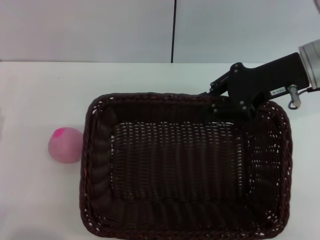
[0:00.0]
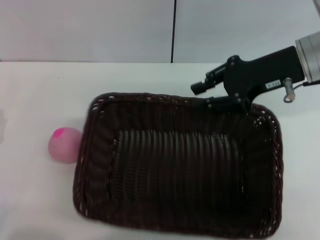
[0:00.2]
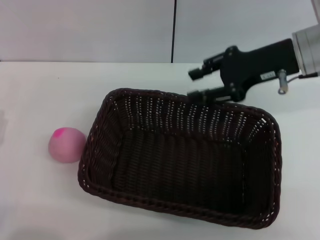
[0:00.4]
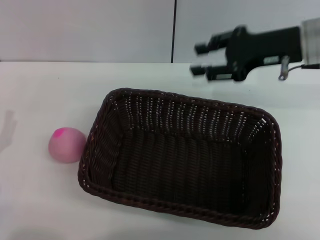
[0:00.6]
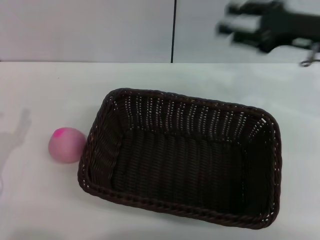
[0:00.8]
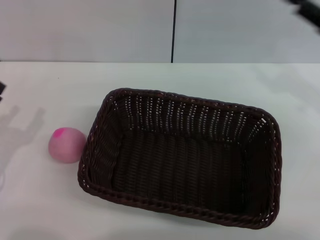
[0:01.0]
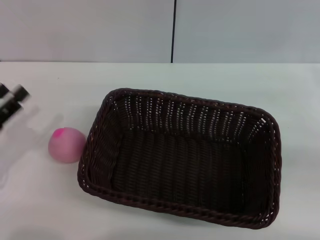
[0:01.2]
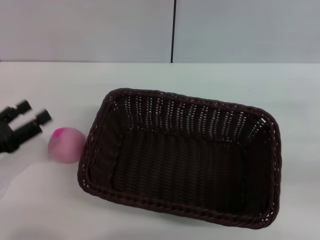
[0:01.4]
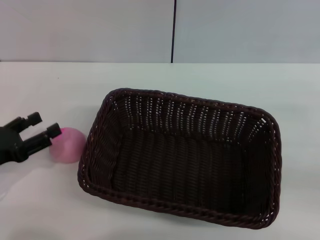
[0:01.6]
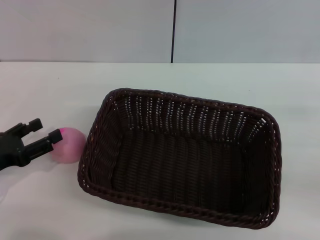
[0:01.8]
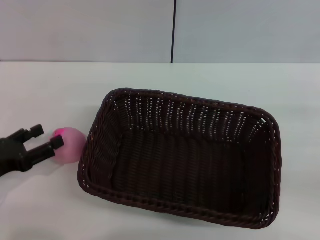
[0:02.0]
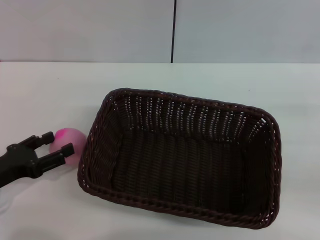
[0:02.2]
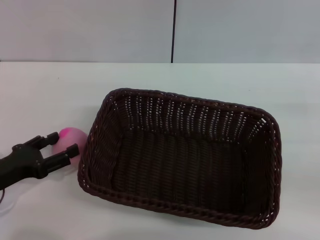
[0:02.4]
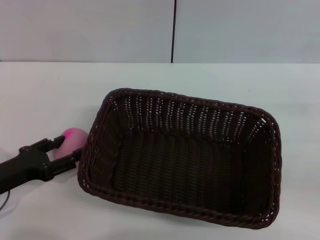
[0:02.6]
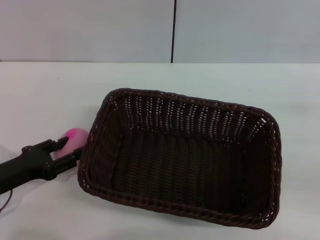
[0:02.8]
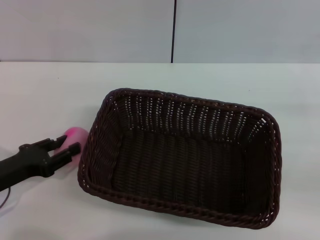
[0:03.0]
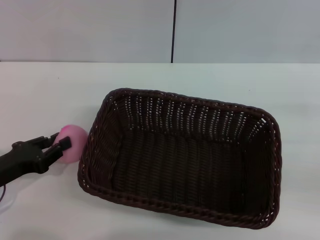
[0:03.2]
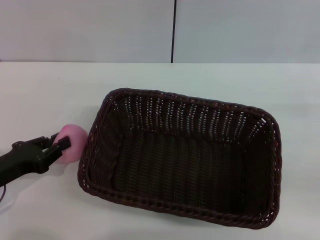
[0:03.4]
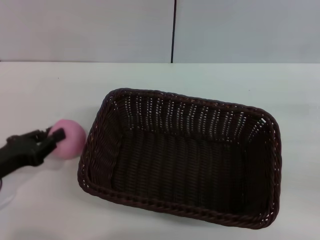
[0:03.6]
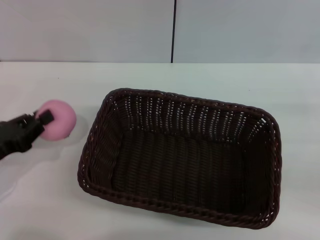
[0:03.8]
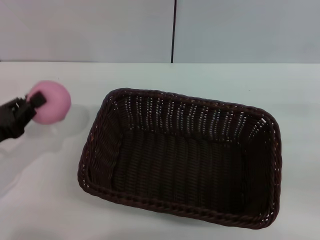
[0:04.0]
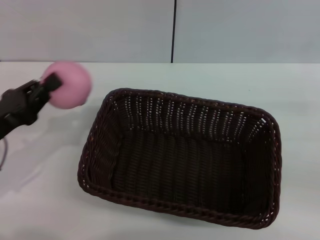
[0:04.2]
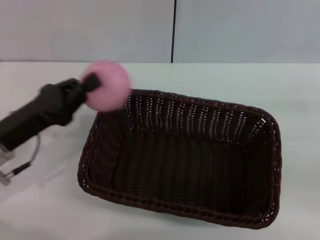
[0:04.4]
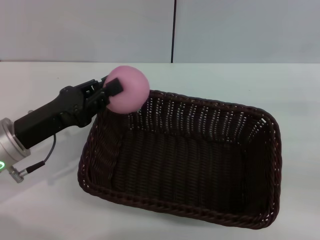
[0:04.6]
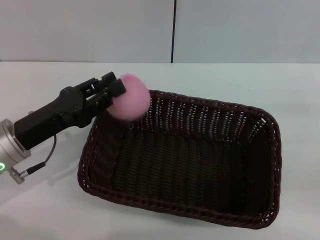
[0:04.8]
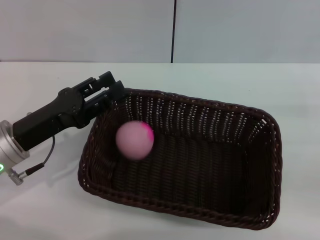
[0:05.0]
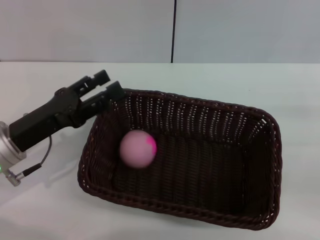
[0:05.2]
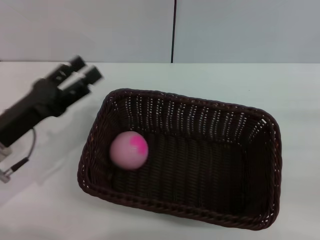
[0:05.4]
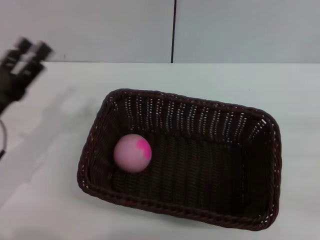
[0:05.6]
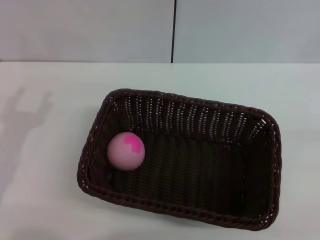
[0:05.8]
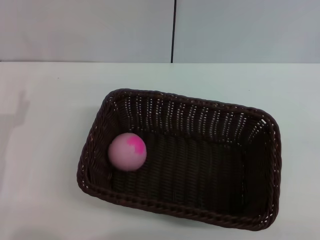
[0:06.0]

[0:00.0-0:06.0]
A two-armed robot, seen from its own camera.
Step, 0:00.6 to 0:04.0: Pick up the peach with the left gripper.
Step, 0:04.2 to 0:05.0: Place the peach into the basket with the left gripper.
0:00.0 to 0:01.6: The right gripper is displaced to the right, backward and downward by roughly 25 cm, and opens.
0:01.6 to 0:03.0: The grippers make only small movements.
0:03.0 to 0:04.4: The left gripper shifts roughly 5 cm upward, and closes.
0:04.4 to 0:06.0: The right gripper goes some 10 cm backward and to the right. The left gripper moves some 5 cm, and opens.

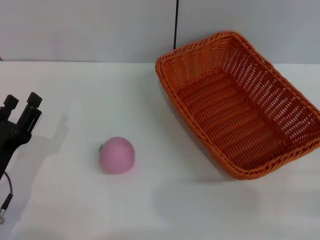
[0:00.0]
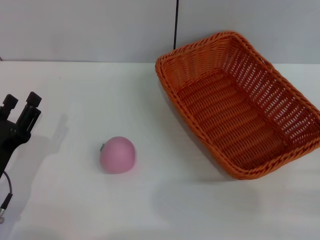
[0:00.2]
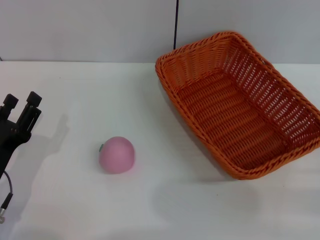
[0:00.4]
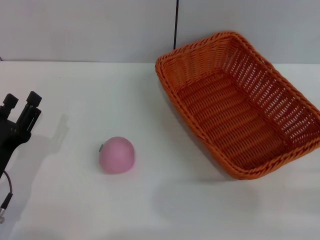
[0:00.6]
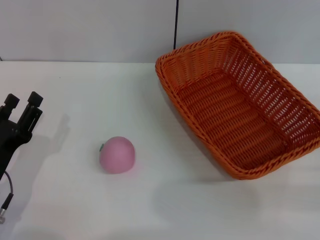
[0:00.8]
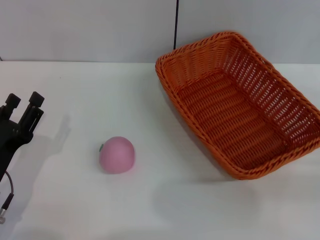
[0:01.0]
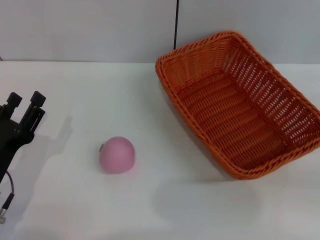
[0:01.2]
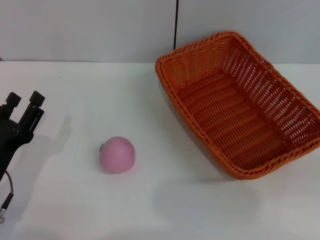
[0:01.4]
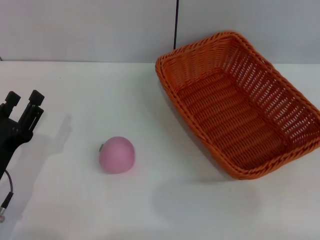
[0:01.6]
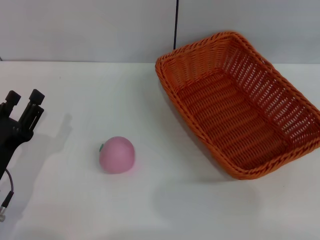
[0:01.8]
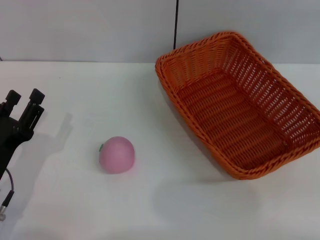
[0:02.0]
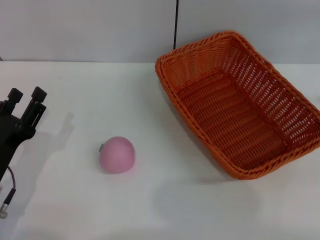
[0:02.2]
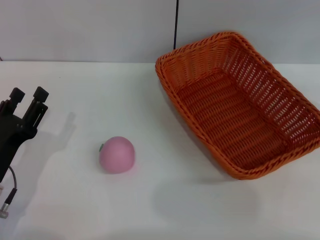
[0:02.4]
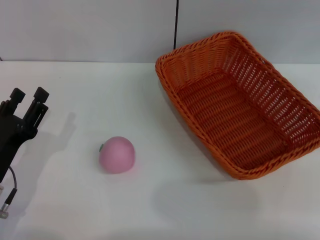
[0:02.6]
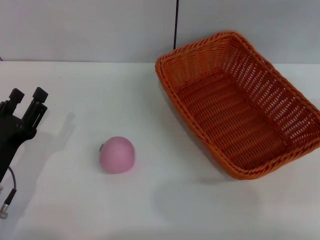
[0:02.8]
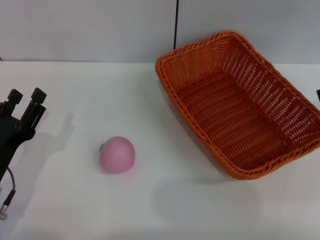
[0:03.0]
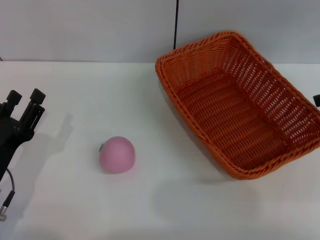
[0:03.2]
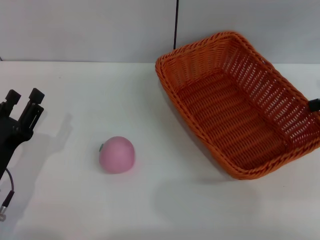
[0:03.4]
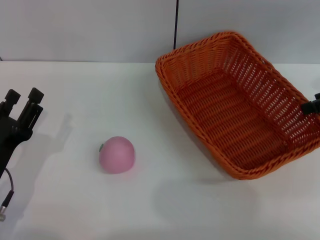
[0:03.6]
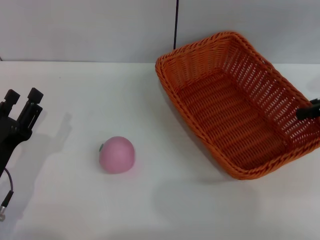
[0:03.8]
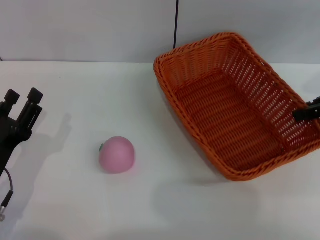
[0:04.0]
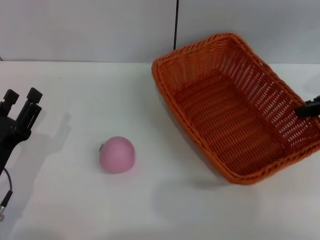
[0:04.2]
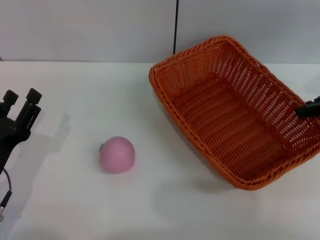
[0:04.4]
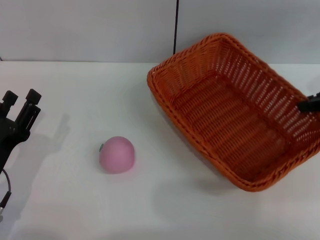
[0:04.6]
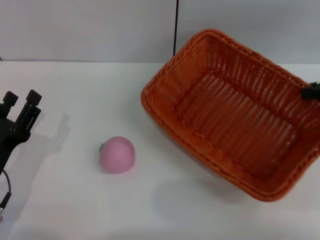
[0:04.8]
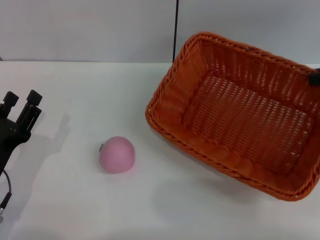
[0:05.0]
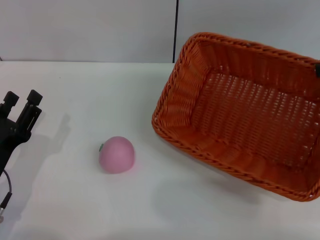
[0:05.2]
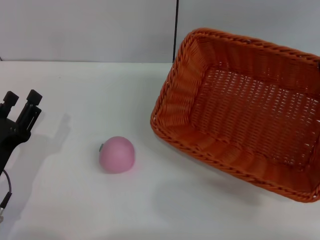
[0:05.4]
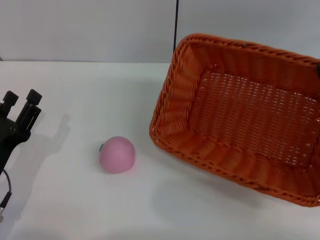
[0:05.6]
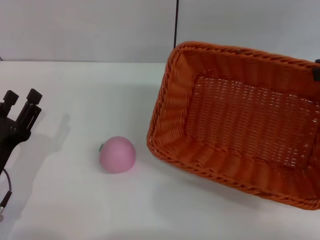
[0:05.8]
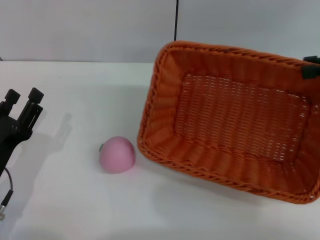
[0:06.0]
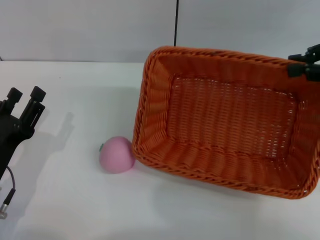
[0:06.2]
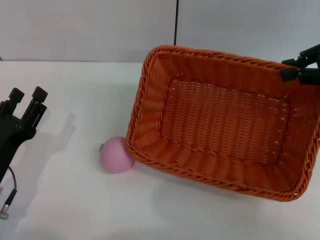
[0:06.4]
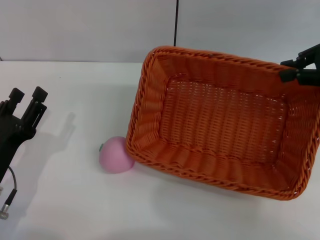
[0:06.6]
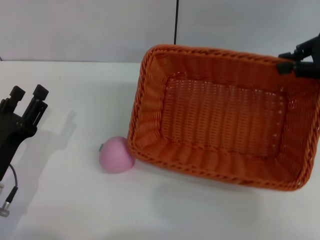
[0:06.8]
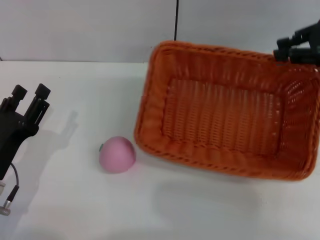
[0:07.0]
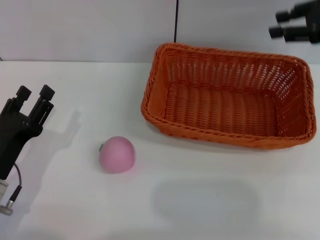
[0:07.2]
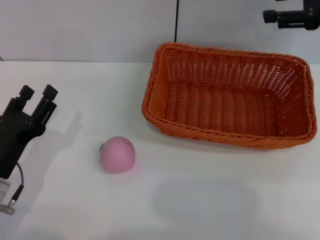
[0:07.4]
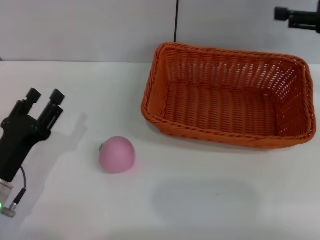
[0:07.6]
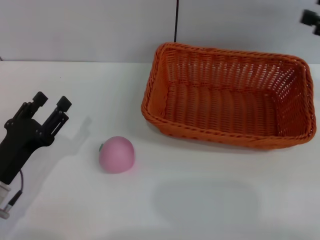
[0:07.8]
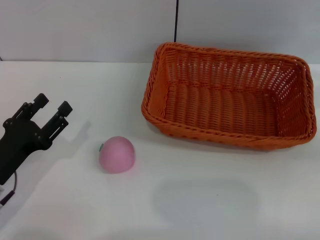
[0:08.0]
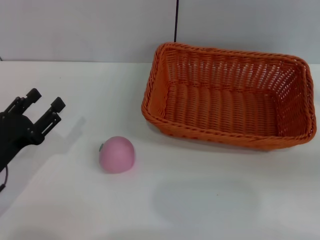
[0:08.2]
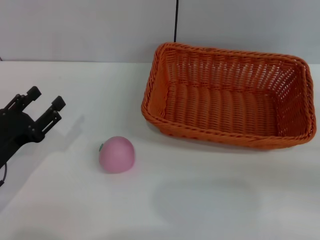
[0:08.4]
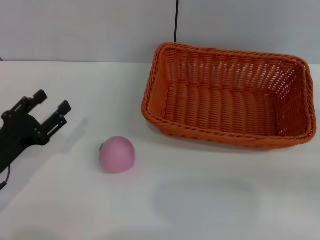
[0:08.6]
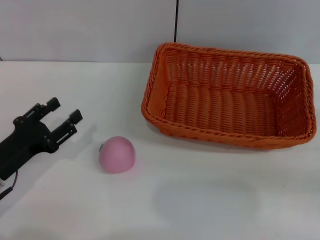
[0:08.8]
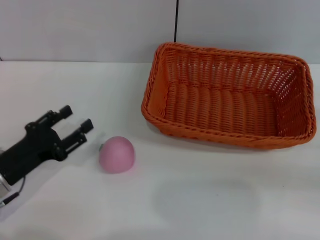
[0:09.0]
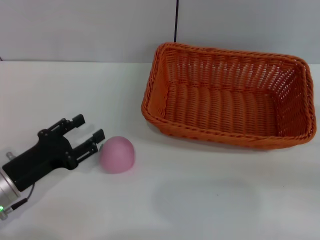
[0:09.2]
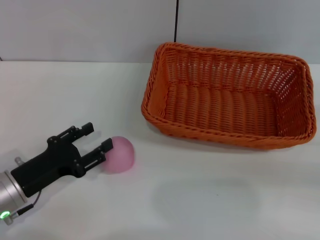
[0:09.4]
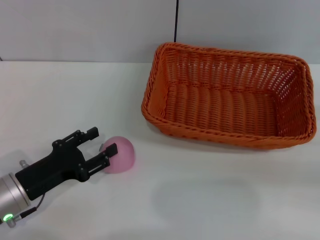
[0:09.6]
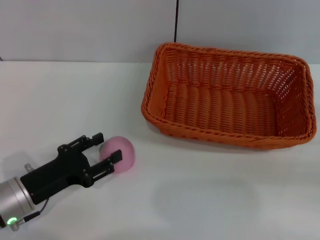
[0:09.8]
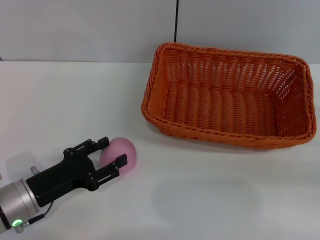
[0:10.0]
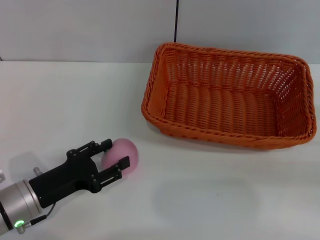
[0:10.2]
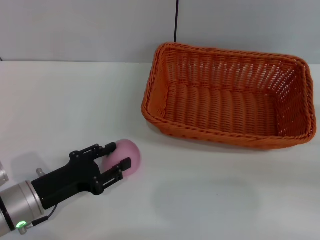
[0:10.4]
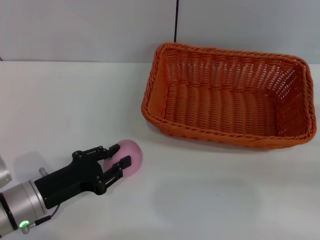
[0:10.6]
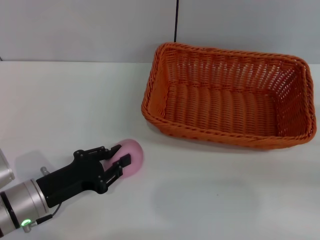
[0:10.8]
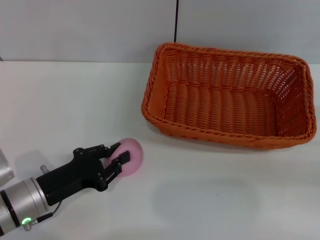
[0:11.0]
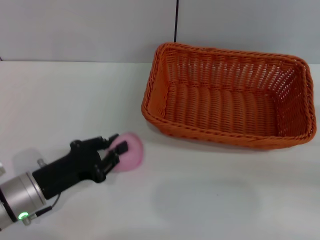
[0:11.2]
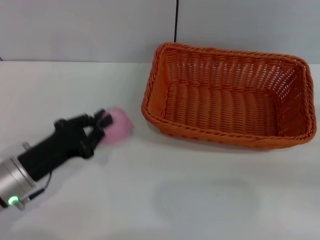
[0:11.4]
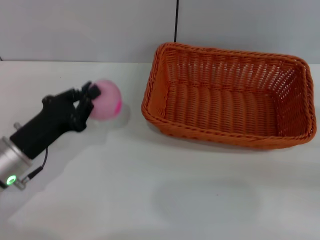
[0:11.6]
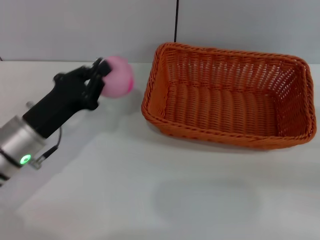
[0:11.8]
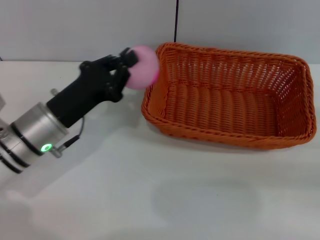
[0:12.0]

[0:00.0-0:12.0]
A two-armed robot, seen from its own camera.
Step, 0:00.0 to 0:04.6: Pick up the light basket with the right gripper.
Step, 0:04.8 to 0:07.4: Place the light basket in the center of view with the right gripper.
Step, 0:07.6 to 0:11.4: Pick up the peach with the left gripper.
0:03.0 to 0:04.4: The right gripper changes place by approximately 5 cm, and closes its fingers.
0:04.4 to 0:06.0: The right gripper shifts by about 5 cm.
0:06.0 to 0:07.6: The right gripper opens up.
0:07.6 to 0:09.0: The right gripper goes roughly 20 cm backward, downward and to the right.
0:09.0 to 0:10.4: The grippers stay close to where they were, moving slightly.
0:10.4 to 0:12.0: The left gripper heads forward and upward, covering some 10 cm, and closes.

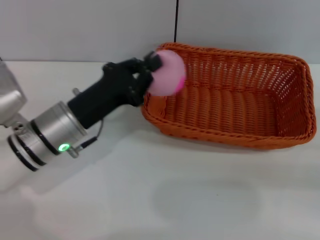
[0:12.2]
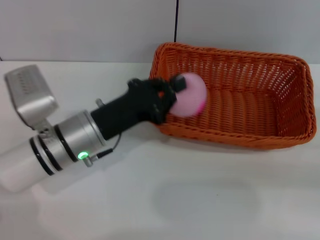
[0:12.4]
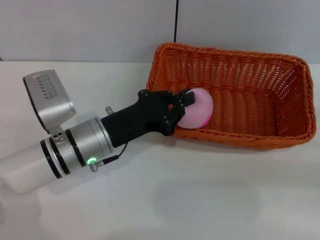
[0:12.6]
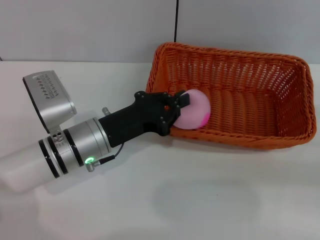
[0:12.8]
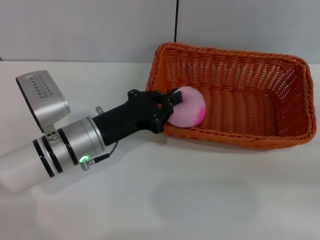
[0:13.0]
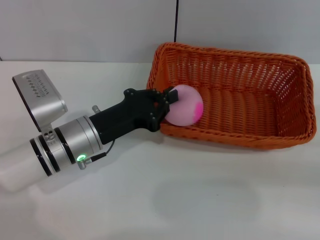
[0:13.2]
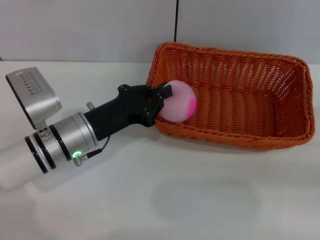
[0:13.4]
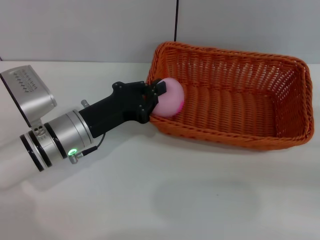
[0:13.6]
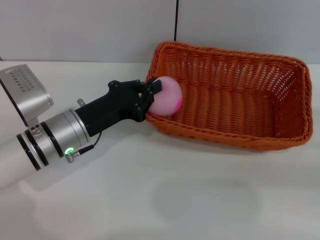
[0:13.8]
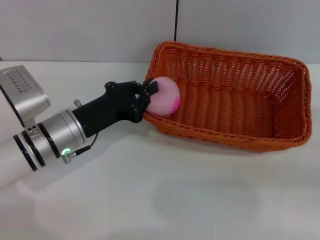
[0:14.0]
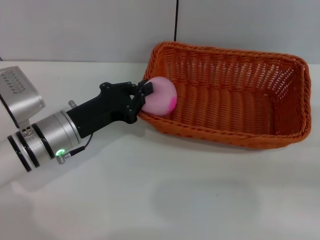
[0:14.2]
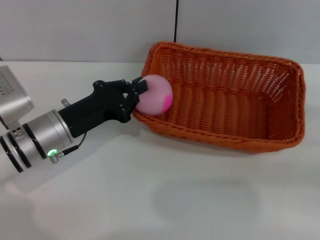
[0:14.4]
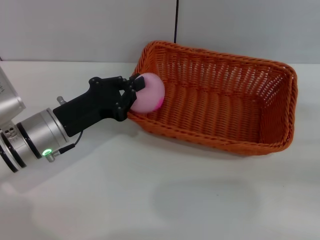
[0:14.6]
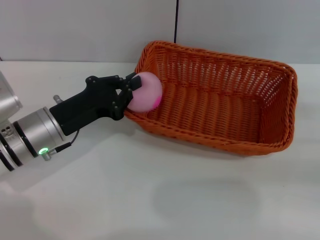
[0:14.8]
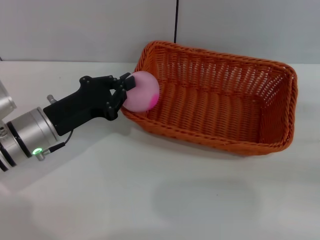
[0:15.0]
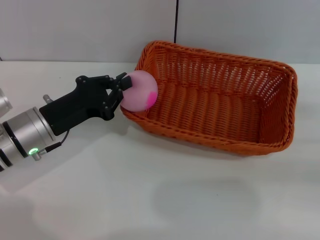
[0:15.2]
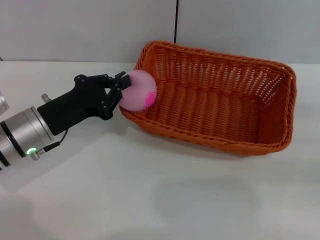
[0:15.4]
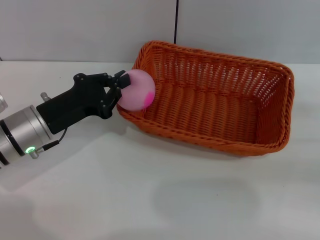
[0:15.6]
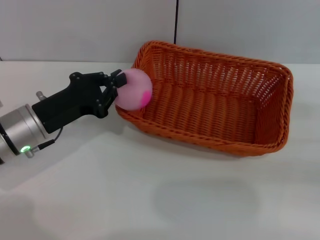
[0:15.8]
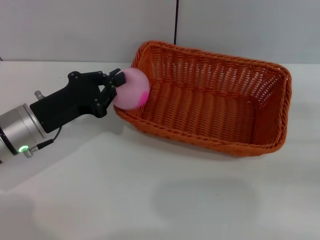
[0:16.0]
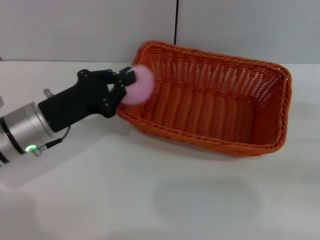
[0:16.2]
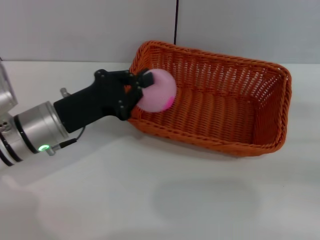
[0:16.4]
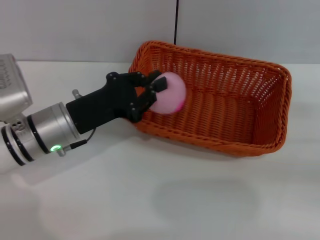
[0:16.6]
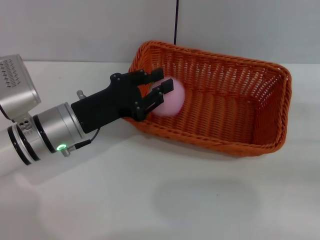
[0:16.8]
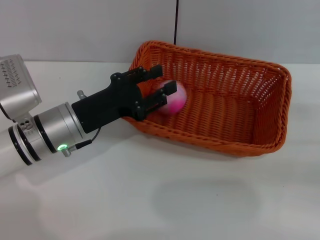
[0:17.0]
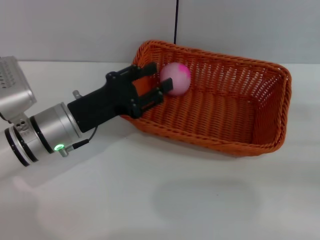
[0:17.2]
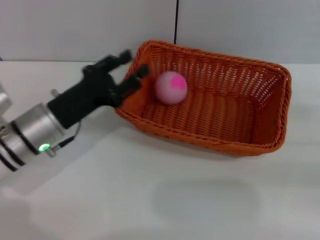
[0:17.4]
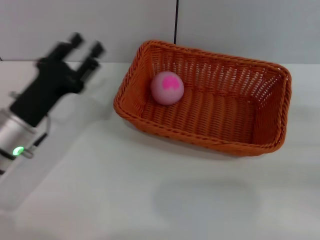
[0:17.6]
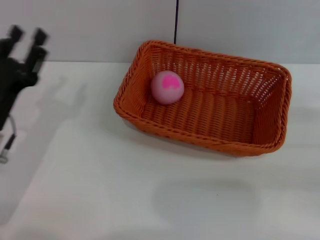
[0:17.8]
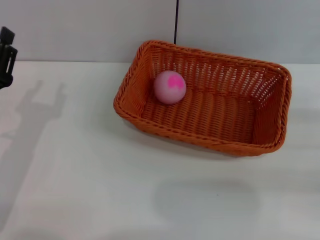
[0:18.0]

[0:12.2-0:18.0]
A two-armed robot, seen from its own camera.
Step, 0:12.2 to 0:17.2: Place the peach into the basket with the left gripper.
0:12.2 to 0:13.6: The grippers make only small movements.
0:15.0 to 0:16.6: The grippers stay close to where they were, moving slightly.
0:16.6 to 0:18.0: The left gripper travels to the left and backward by about 10 cm, and opens up.
